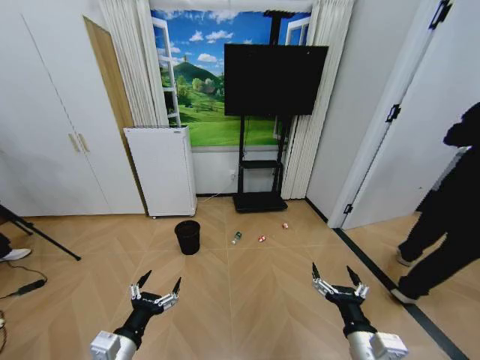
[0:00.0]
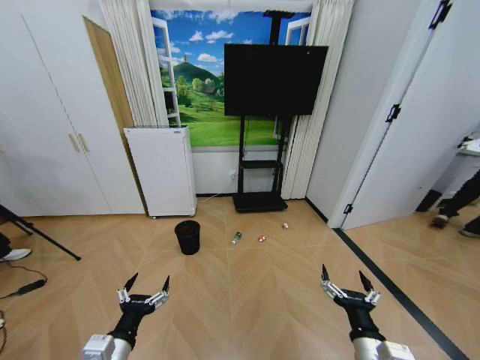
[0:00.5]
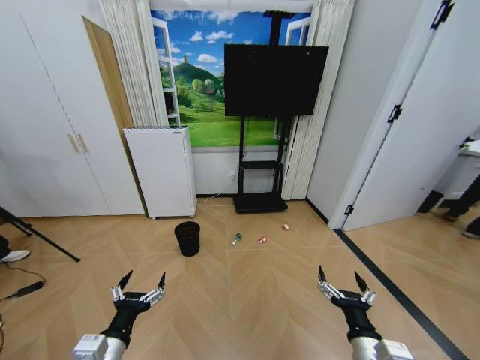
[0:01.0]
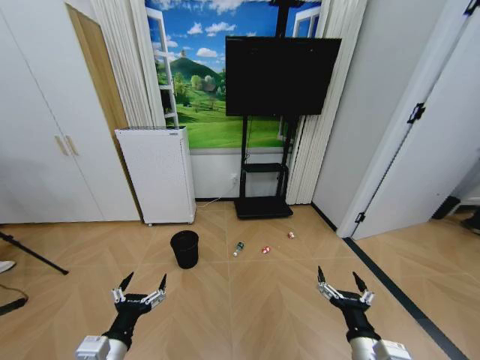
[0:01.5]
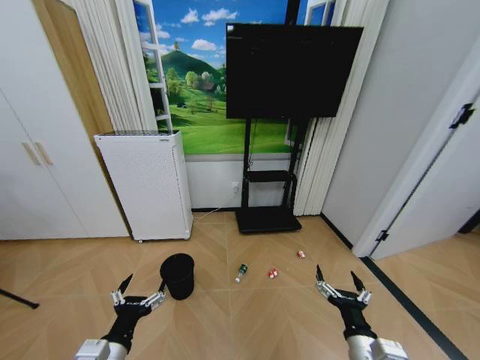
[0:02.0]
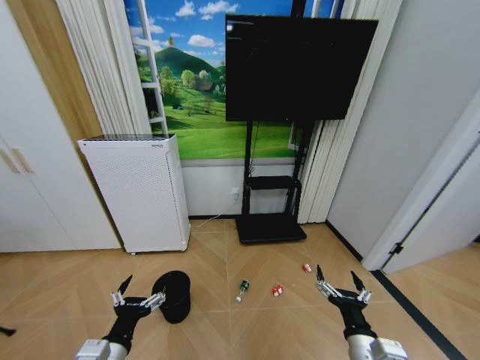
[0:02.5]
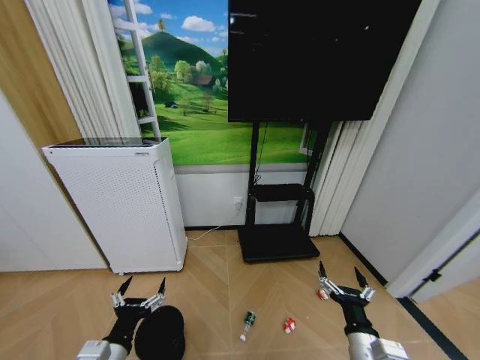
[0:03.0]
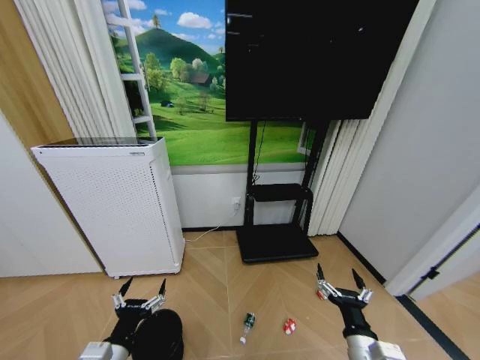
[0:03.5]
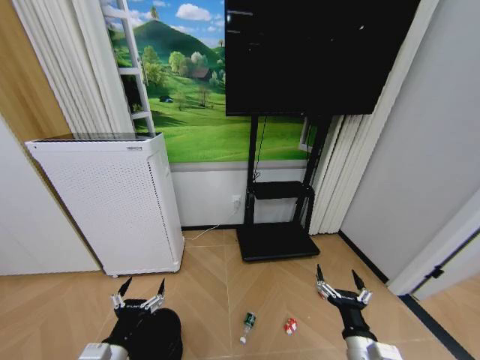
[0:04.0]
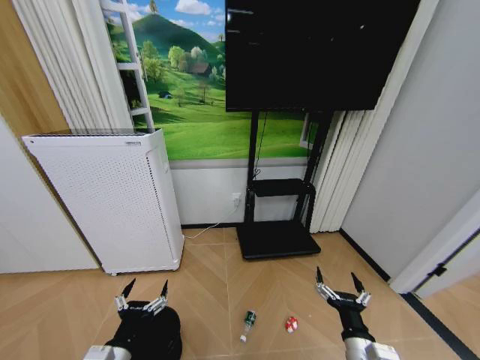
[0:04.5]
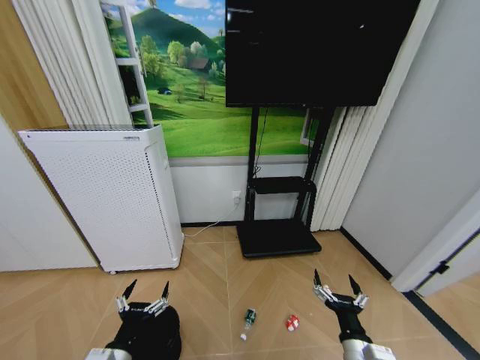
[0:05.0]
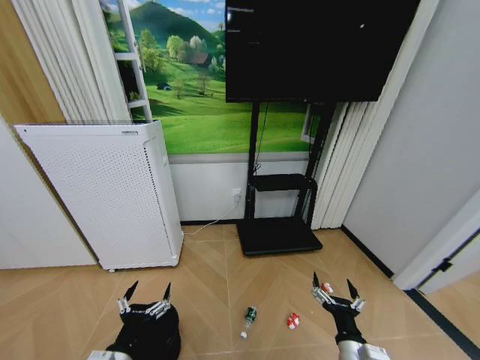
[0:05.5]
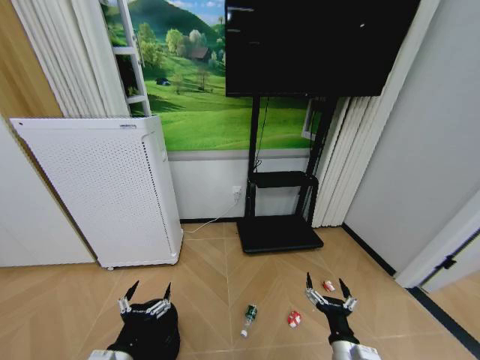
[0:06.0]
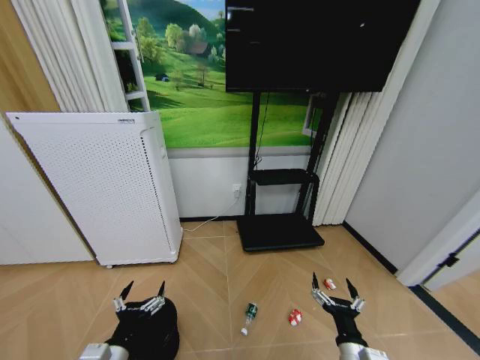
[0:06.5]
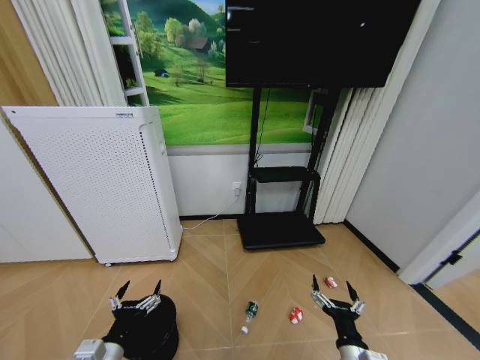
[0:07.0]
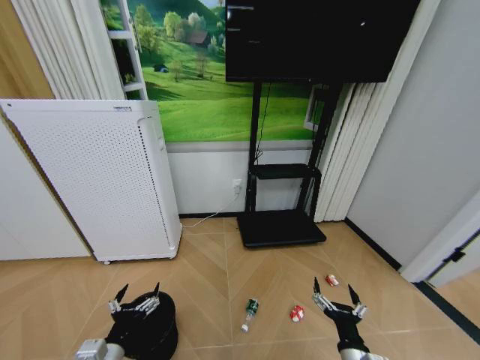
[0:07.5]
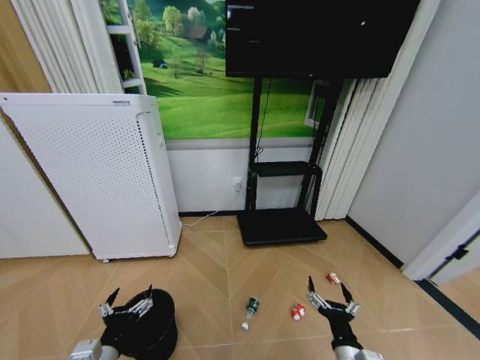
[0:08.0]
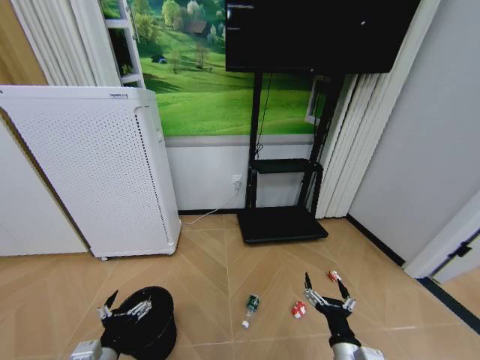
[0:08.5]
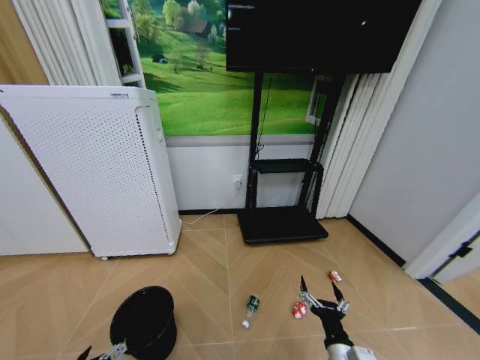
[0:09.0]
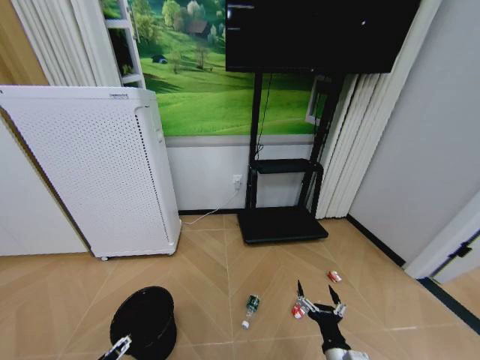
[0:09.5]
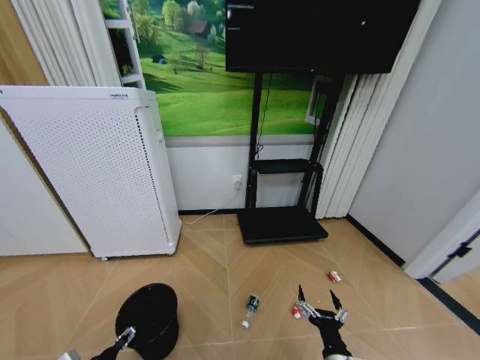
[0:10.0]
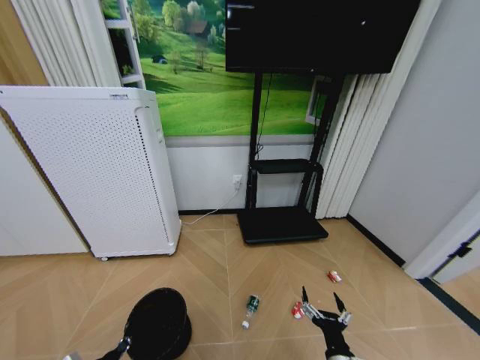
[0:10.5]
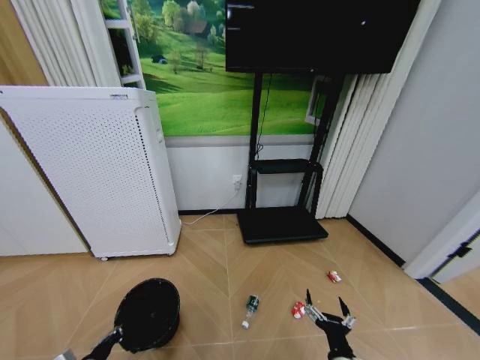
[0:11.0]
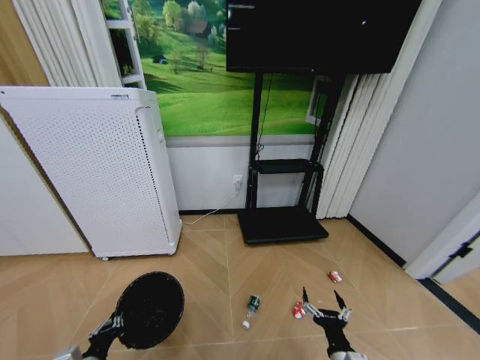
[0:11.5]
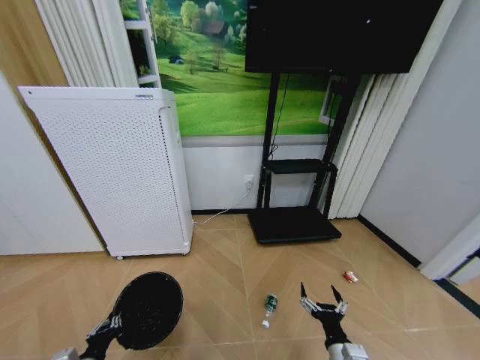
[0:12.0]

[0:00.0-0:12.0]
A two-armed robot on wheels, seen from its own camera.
Task of the whole recording: Pick up the trash bin and place the garbage on the floor into it.
6.0 to 8.0 s: The grippers move only a little.
8.0 to 10.0 s: The left gripper travels to the left and downward by roughly 10 cm.
10.0 to 12.0 s: The left gripper moves approximately 5 cm, and closes up.

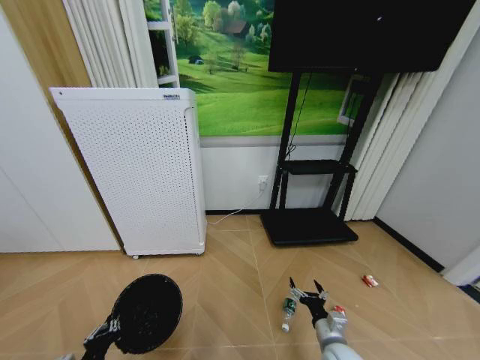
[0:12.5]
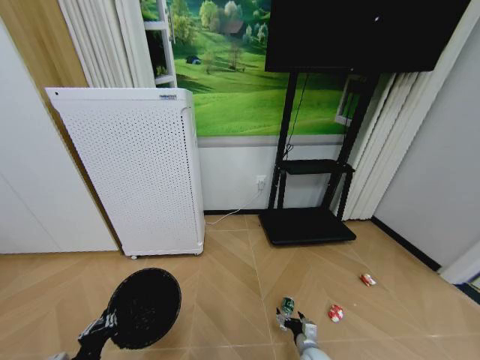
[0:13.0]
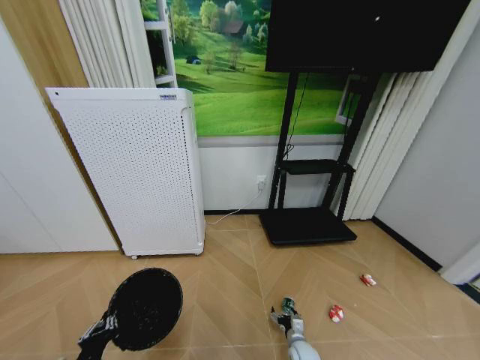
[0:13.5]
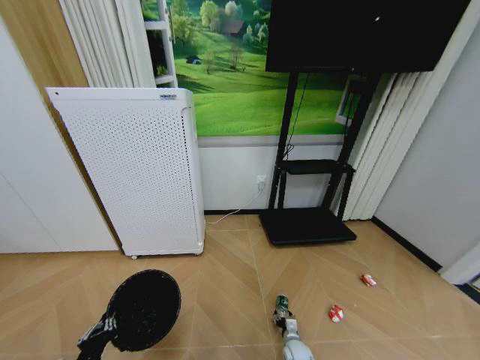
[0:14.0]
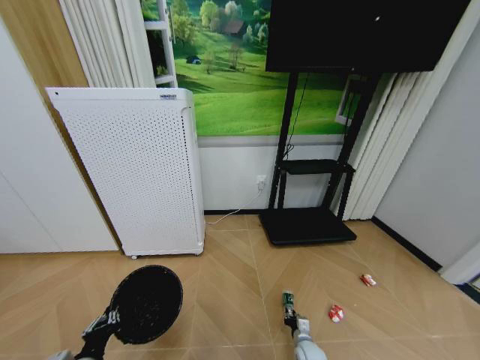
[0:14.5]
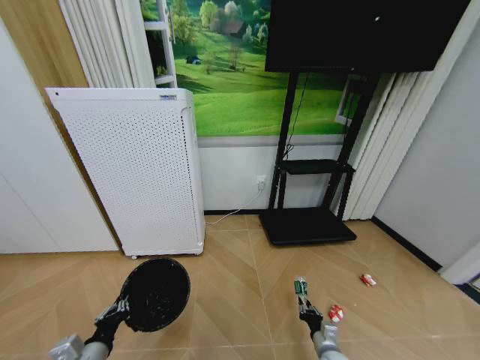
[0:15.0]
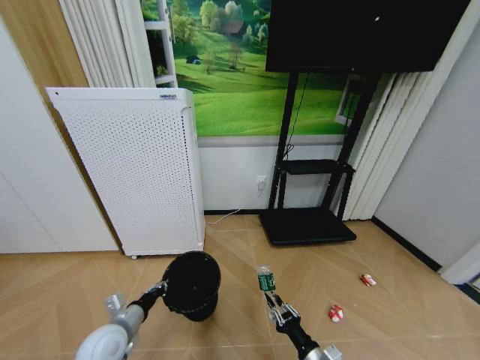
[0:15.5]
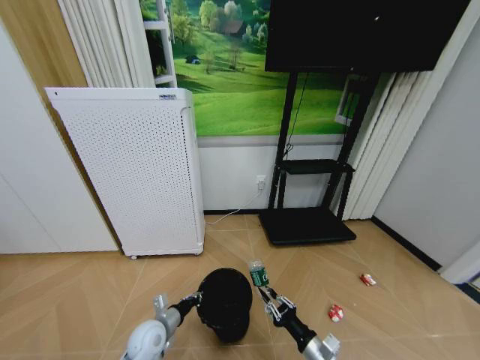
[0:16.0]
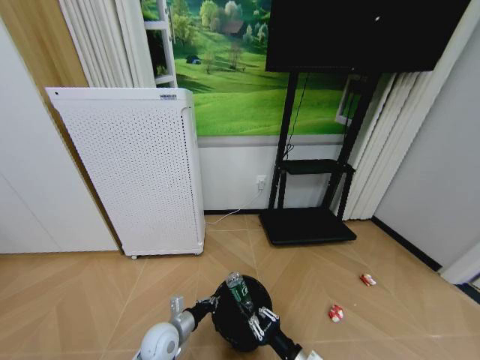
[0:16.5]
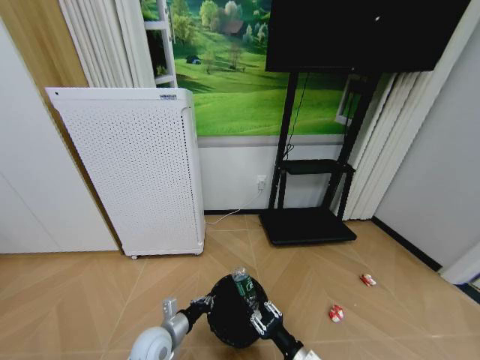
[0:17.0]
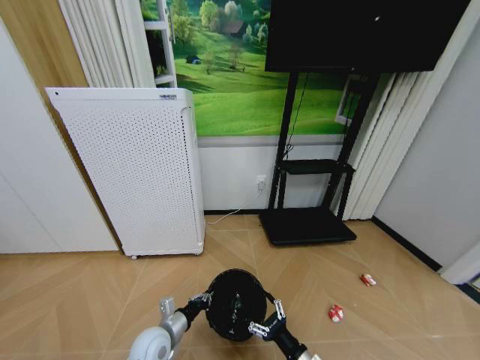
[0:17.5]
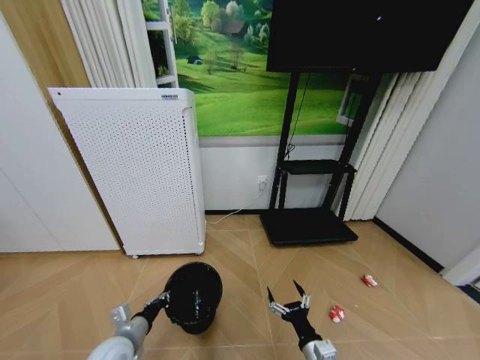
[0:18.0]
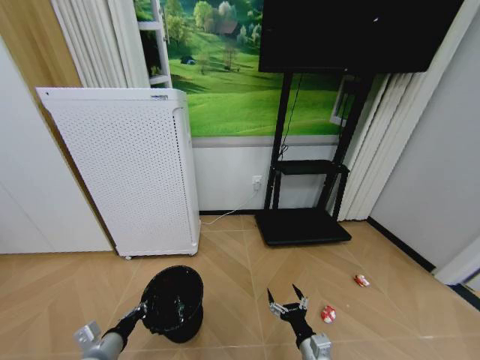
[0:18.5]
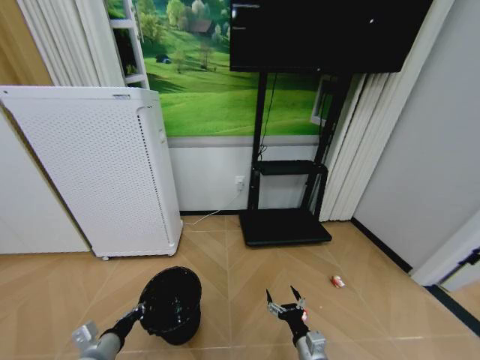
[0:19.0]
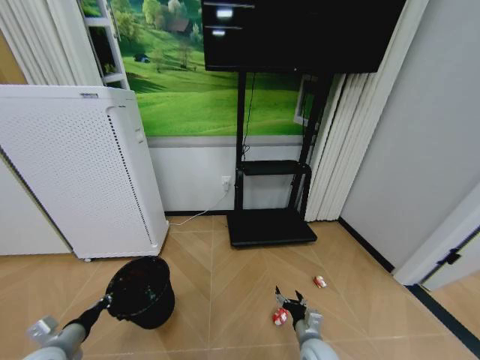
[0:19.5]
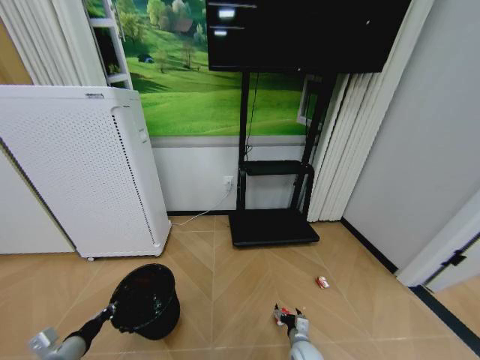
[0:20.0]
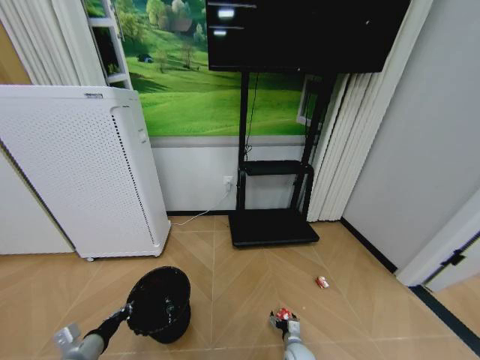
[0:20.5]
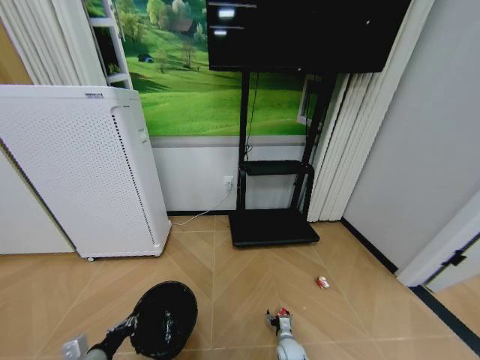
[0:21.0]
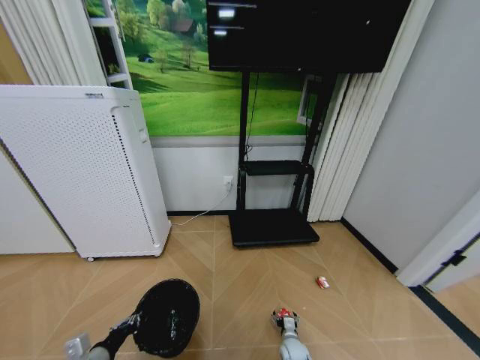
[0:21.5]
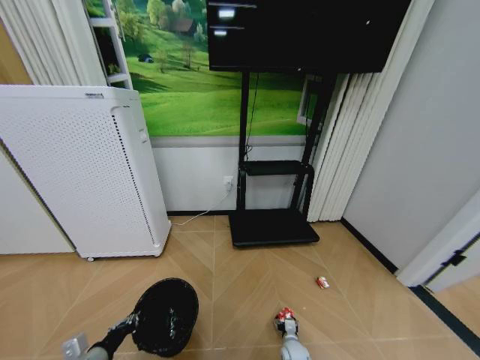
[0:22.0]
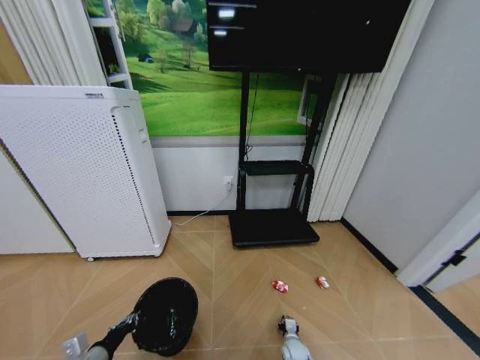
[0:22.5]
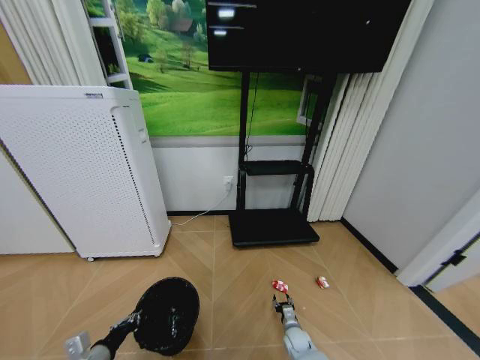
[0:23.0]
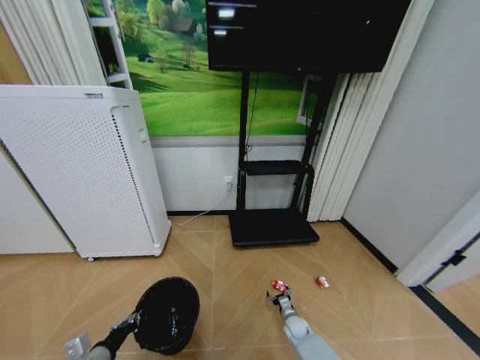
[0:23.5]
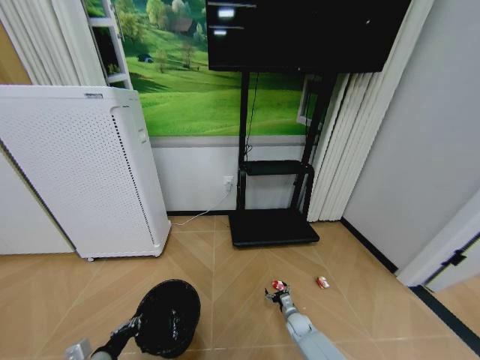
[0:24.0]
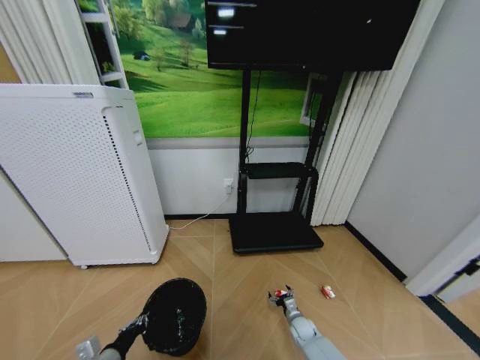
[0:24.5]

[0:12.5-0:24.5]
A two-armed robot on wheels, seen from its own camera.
Task of the whole recording: Pick up the trash bin and place the garbage on the floor into it.
12.5 to 14.5 s: The right gripper shifts approximately 20 cm downward, and closes.
14.5 to 16.5 s: The left gripper heads forward, to the right and downward, covering some 20 cm. The right gripper goes roughly 25 cm upward and backward.
16.5 to 18.5 s: The right gripper opens up. The left gripper goes some 15 cm to the left, backward and upward.
18.5 to 20.5 s: The right gripper shifts some 20 cm downward and forward. Meanwhile the left gripper goes about 5 cm to the left.
20.5 to 22.5 s: The right gripper closes up.
22.5 to 24.5 s: The right gripper is displaced forward and to the right by some 10 cm, and opens up.

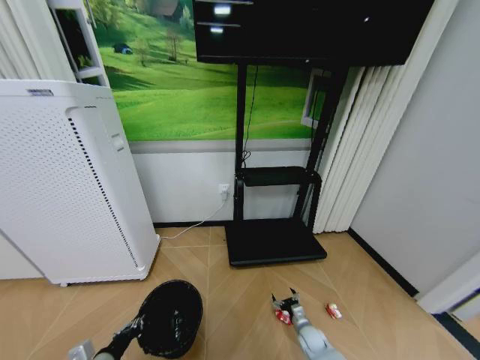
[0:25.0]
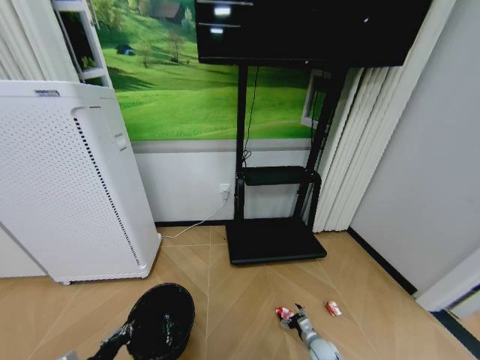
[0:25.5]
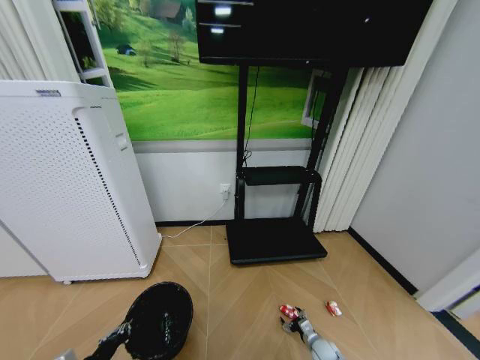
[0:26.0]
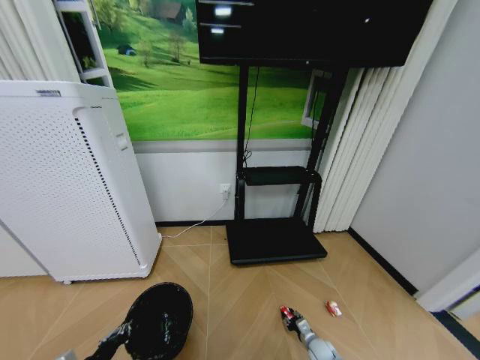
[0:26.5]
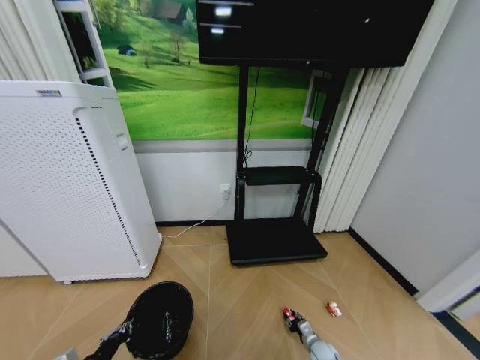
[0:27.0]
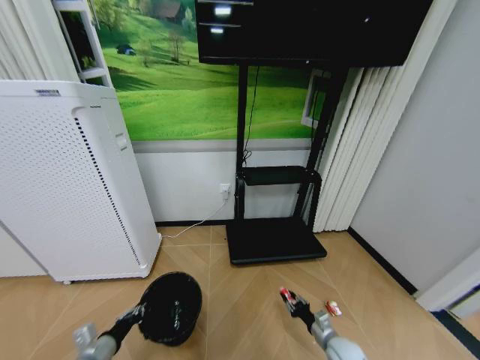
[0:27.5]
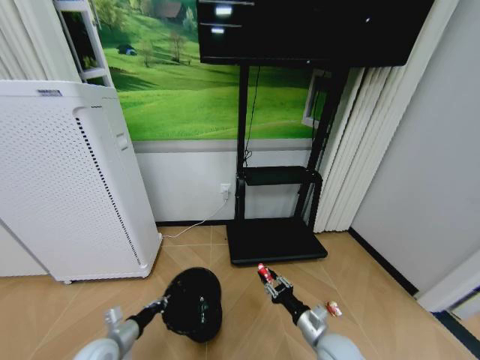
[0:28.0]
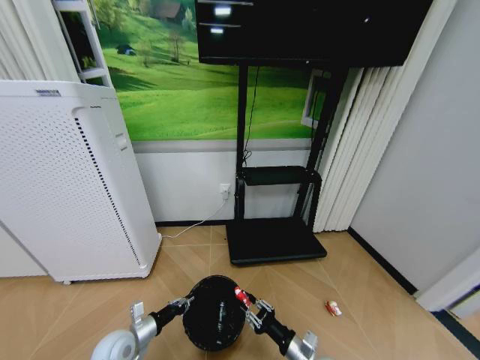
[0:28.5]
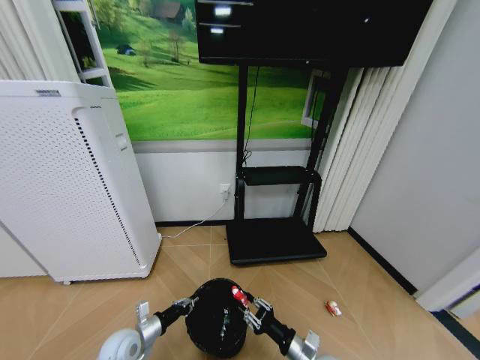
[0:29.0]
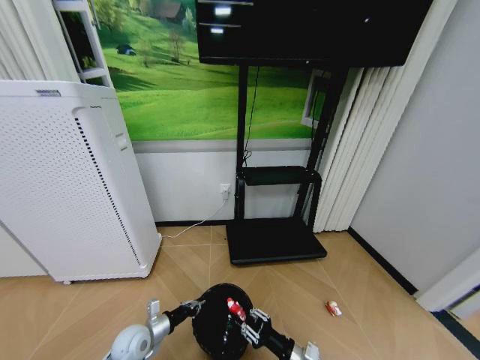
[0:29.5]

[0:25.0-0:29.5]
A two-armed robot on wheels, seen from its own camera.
Task of the whole recording: Pick up the trash bin and place the garbage on the floor into it.
25.0 to 27.0 s: The right gripper ends up about 5 cm from where it was, and closes its fingers.
27.0 to 29.5 s: The right gripper heads upward and to the left, covering approximately 25 cm; the left gripper shifts some 20 cm forward, downward and to the right.
